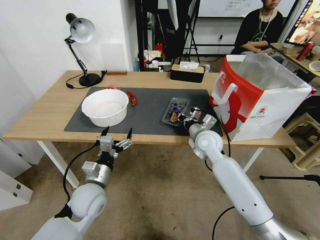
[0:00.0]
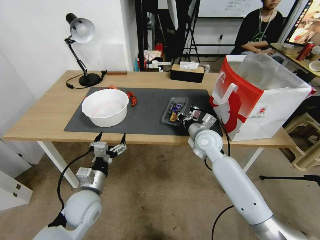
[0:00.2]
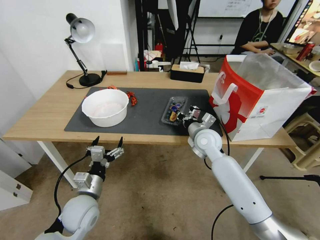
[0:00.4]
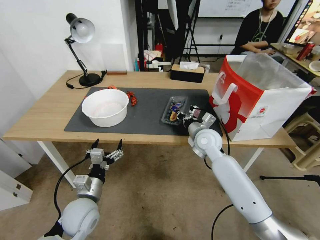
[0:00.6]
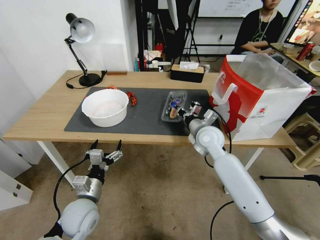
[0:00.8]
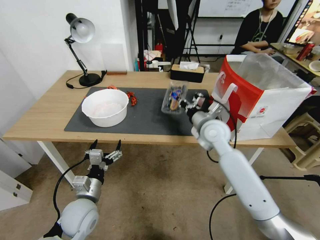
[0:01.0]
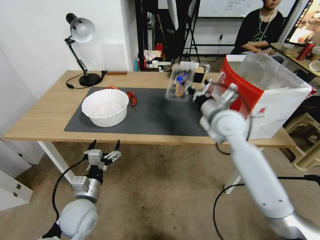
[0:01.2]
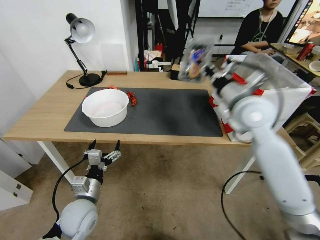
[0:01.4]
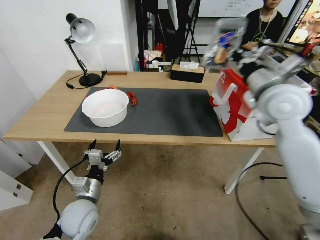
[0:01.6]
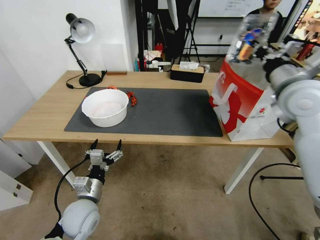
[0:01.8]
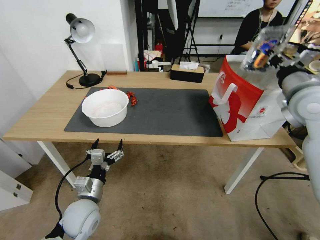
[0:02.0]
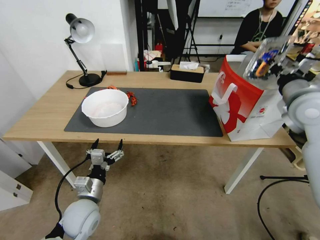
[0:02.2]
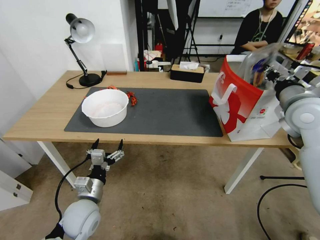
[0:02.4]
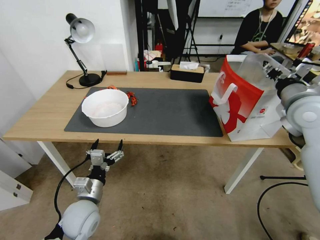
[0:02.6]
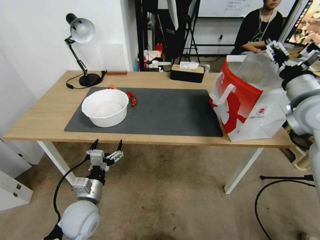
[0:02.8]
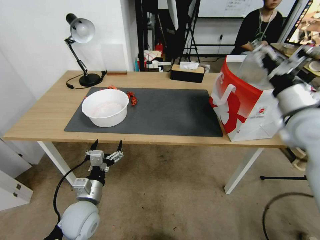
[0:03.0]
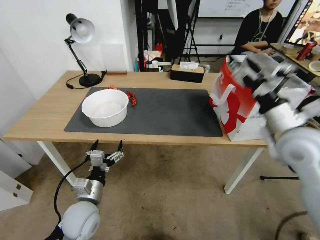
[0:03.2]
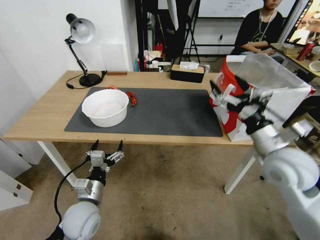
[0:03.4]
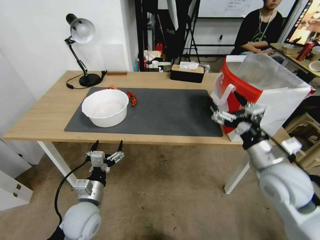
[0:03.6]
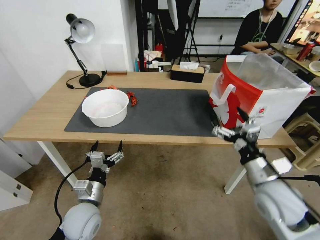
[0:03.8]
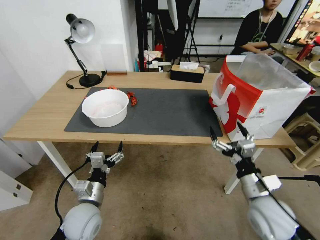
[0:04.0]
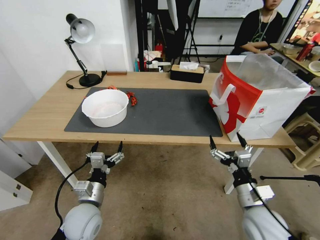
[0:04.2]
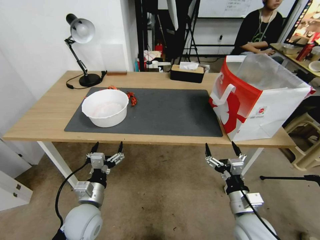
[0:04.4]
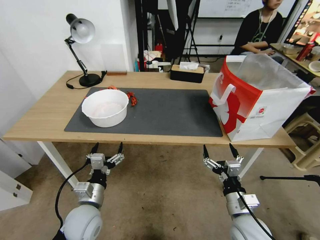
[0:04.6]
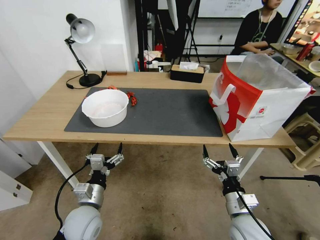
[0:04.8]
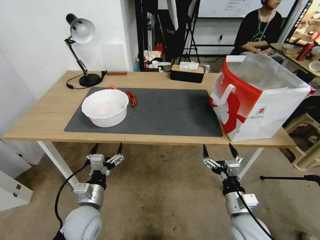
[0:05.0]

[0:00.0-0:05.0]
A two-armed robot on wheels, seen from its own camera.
Task of the whole recording: Close the takeout container lid, then place the container into the takeout bag.
0:00.0 to 0:01.6: The right gripper shifts some 25 cm upward and to the right.
0:01.6 to 0:03.4: The right gripper goes about 15 cm downward and backward, and opens up.
0:03.4 to 0:05.0: The right gripper travels downward and backward by about 25 cm.

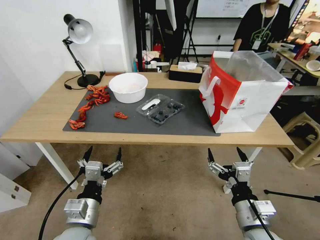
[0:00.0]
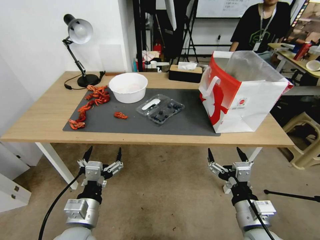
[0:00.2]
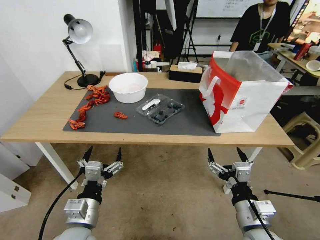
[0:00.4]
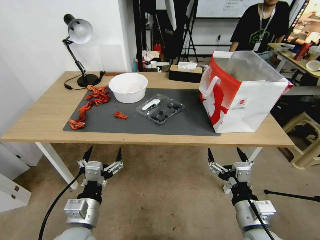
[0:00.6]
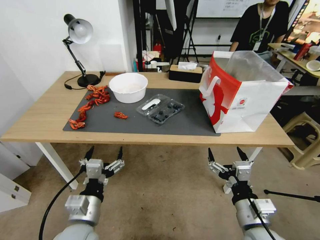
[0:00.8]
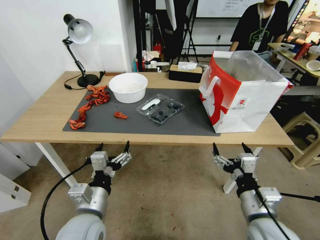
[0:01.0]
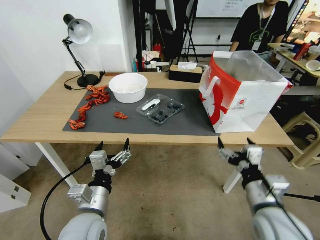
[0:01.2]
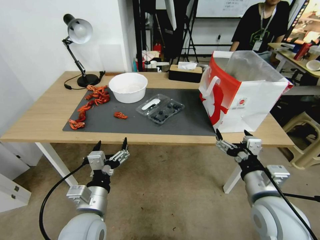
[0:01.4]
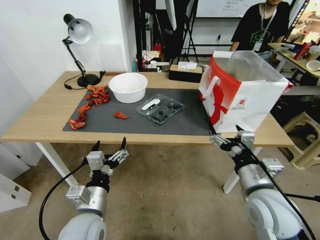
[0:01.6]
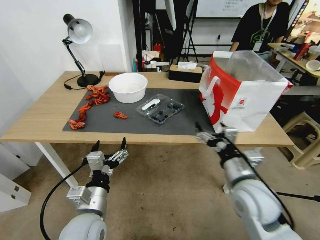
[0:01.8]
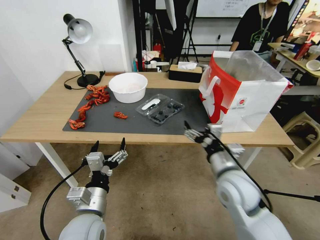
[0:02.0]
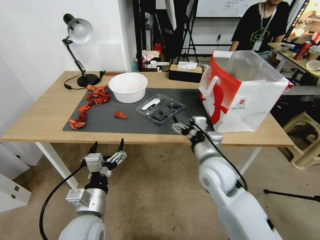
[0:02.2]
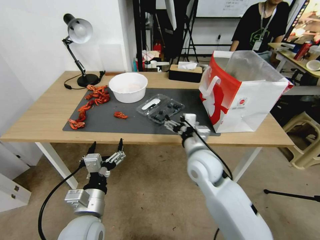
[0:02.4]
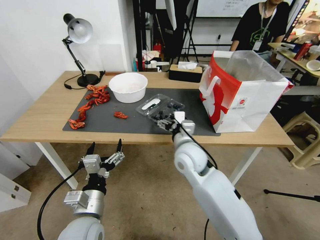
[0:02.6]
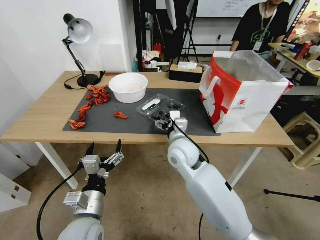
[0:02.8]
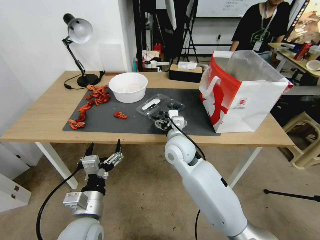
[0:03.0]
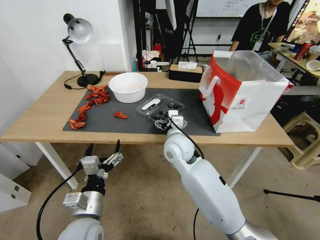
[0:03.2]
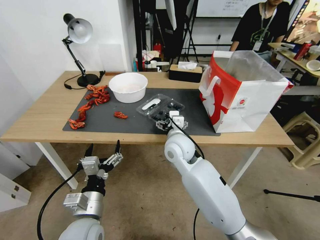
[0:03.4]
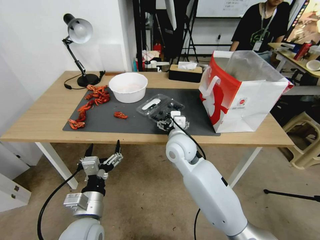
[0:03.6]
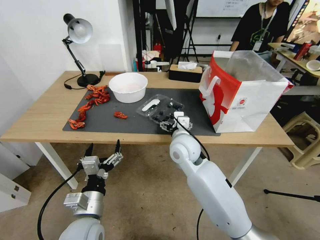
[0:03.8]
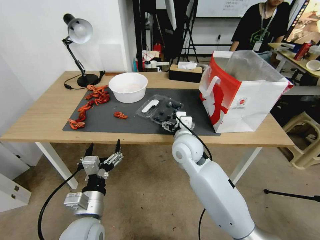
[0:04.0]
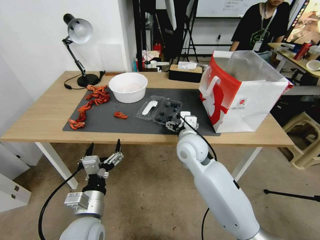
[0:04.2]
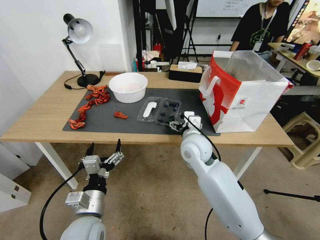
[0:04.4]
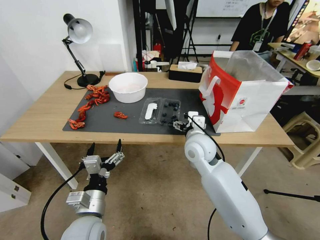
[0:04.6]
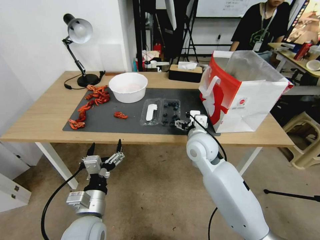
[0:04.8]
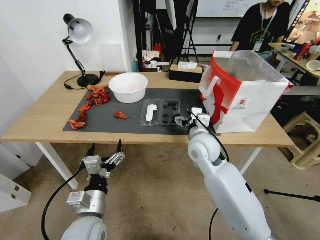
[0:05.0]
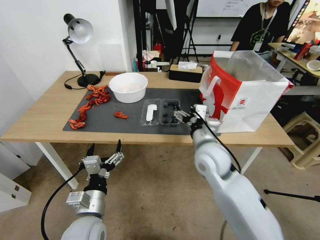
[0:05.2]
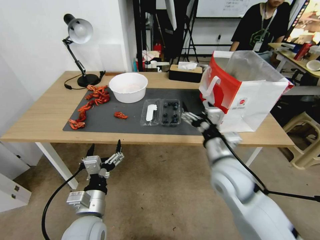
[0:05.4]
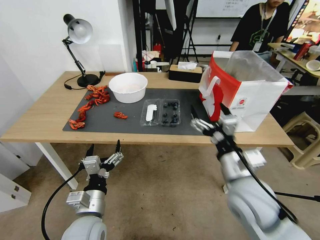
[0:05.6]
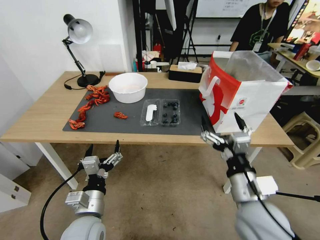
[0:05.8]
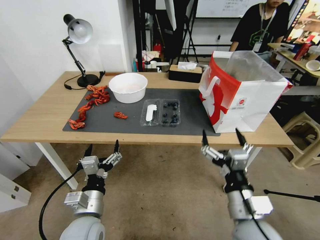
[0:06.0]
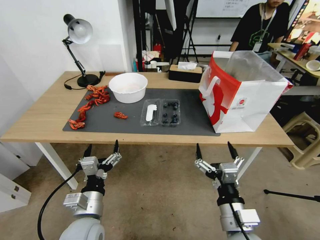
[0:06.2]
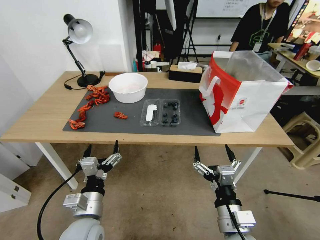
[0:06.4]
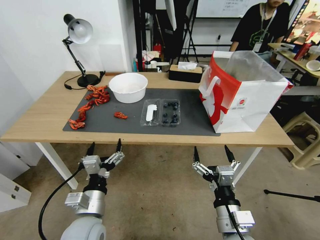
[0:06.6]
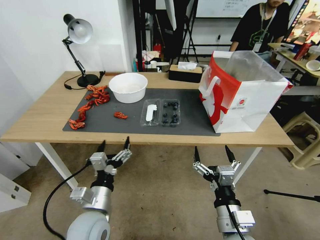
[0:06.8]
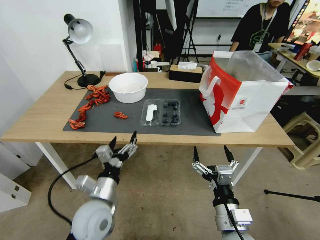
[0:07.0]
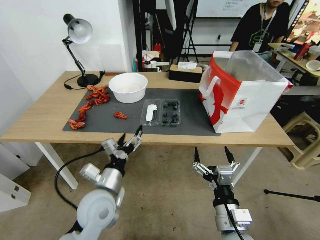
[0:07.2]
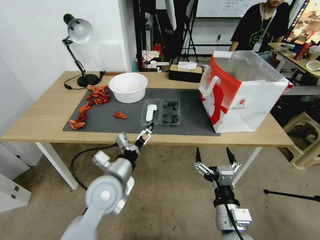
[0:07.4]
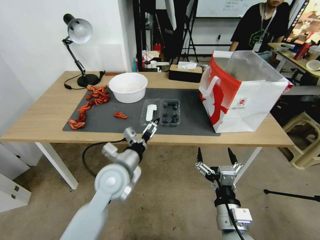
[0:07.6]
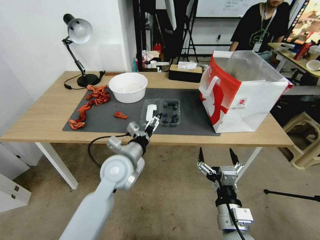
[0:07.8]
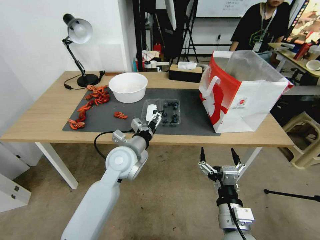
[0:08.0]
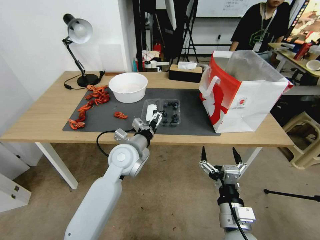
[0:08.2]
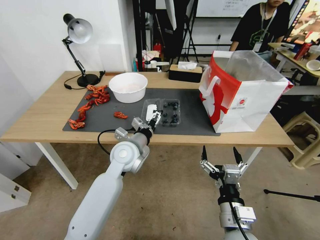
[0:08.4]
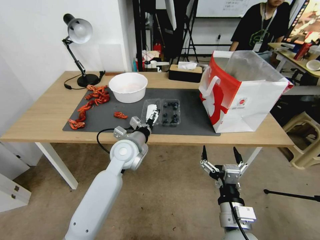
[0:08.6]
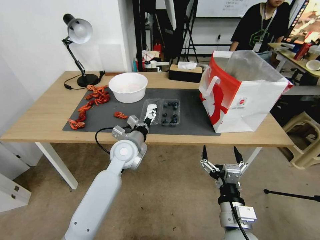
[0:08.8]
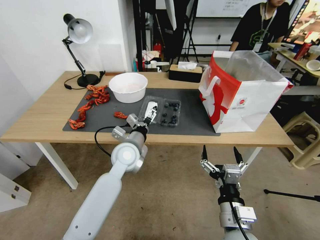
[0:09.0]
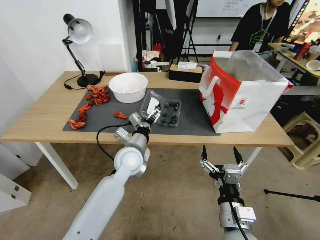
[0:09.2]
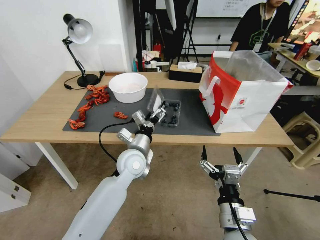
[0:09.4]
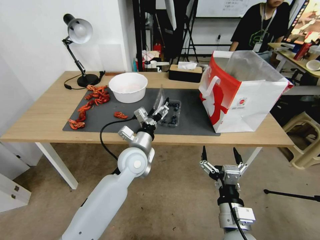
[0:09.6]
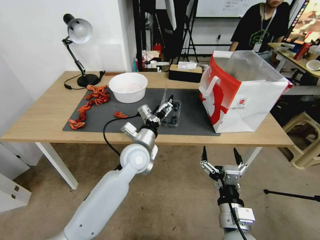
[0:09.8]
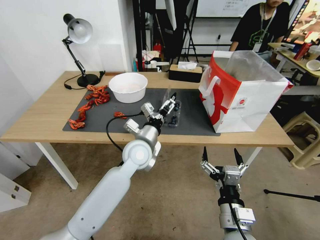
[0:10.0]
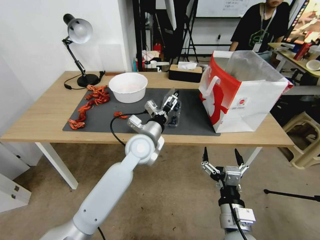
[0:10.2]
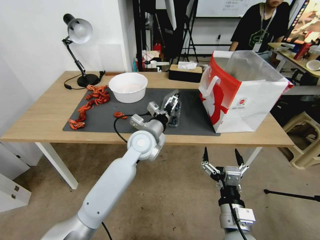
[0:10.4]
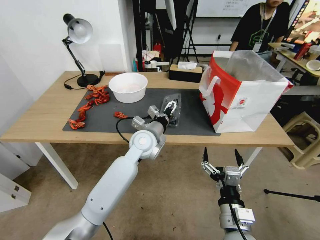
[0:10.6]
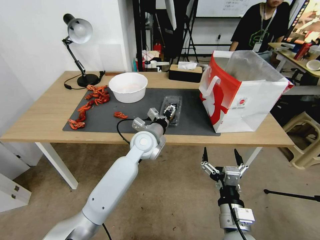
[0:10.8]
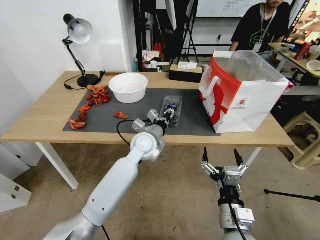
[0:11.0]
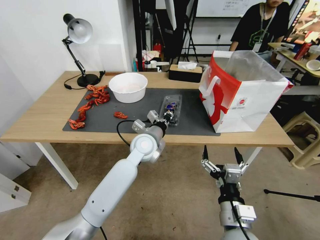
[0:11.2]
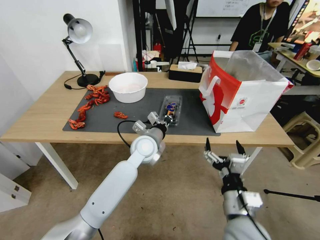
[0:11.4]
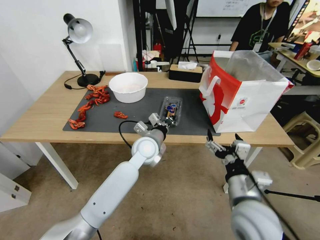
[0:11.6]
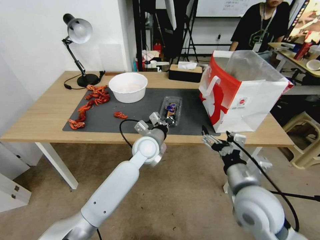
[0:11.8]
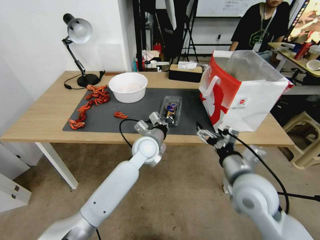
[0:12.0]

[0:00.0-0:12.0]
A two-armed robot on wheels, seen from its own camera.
Task of the whole recording: Close the takeout container lid, then place the container into the takeout bag.
0:01.6 to 0:03.0: The right gripper travels to the left and forward by roughly 25 cm.
0:03.0 to 0:04.4: The right gripper travels to the right by some 5 cm.
0:04.4 to 0:06.0: The right gripper is displaced backward by approximately 25 cm.
0:06.0 to 0:07.6: The right gripper is displaced downward by approximately 5 cm; the left gripper is displaced forward, to the right and upward by roughly 15 cm.
0:07.6 to 0:09.0: The left gripper goes about 10 cm forward.
0:09.0 to 0:10.4: The left gripper travels to the right by about 5 cm.
0:10.4 to 0:12.0: The left gripper closes; the right gripper is displaced forward and upward by about 15 cm.

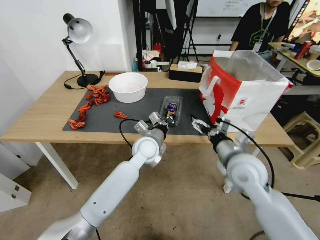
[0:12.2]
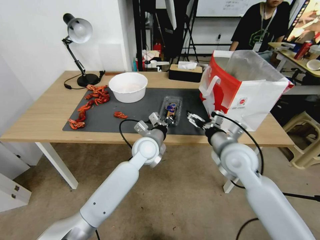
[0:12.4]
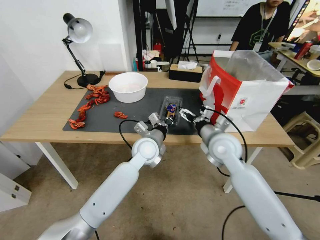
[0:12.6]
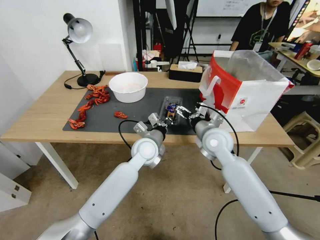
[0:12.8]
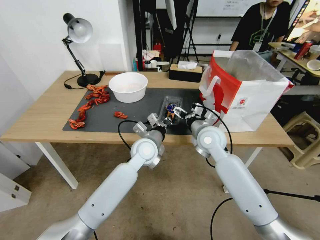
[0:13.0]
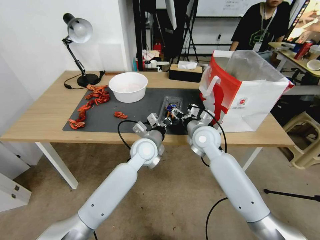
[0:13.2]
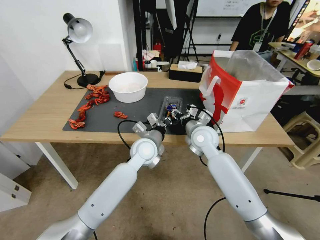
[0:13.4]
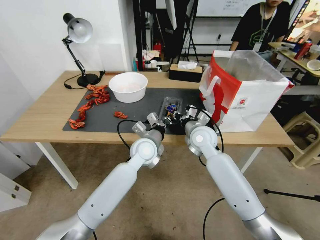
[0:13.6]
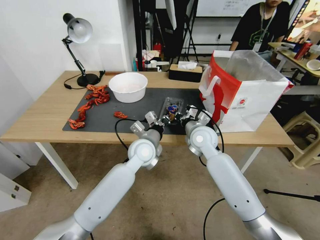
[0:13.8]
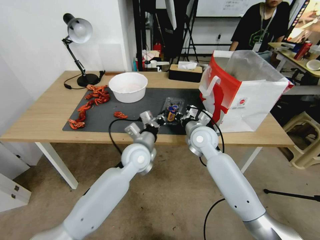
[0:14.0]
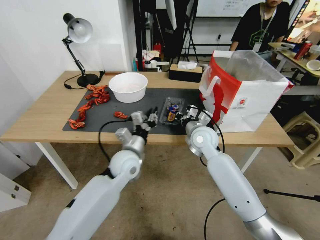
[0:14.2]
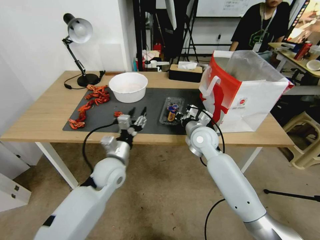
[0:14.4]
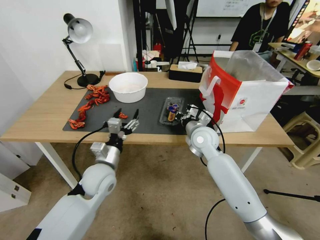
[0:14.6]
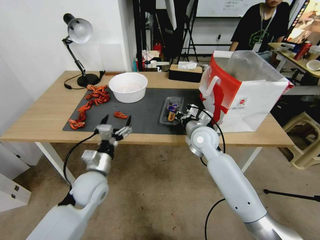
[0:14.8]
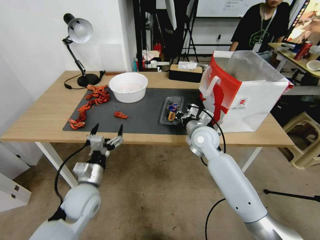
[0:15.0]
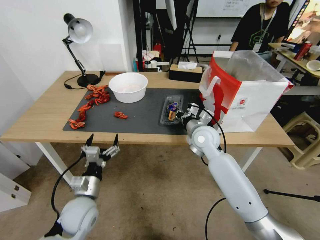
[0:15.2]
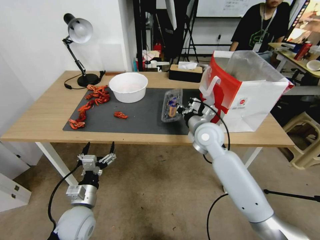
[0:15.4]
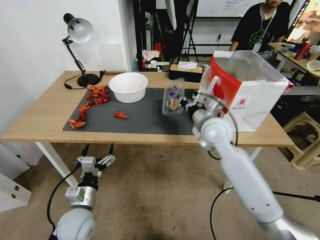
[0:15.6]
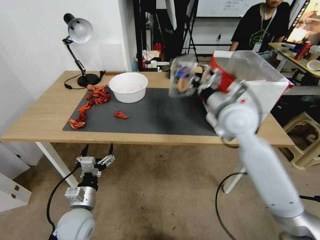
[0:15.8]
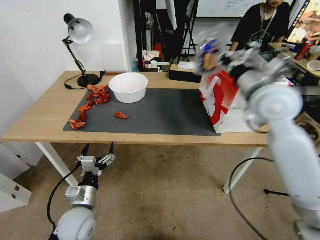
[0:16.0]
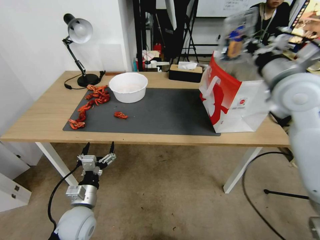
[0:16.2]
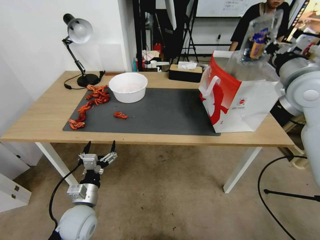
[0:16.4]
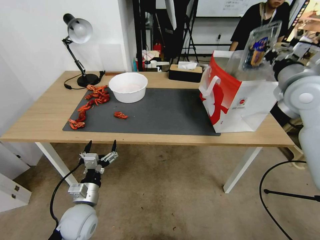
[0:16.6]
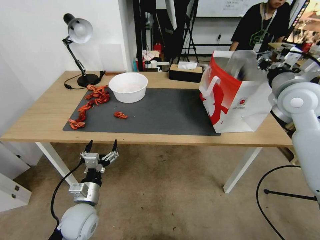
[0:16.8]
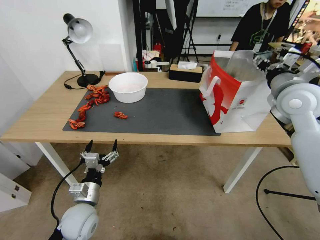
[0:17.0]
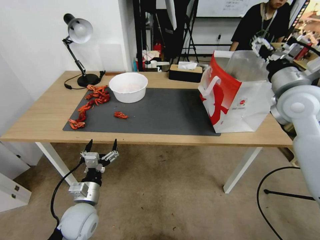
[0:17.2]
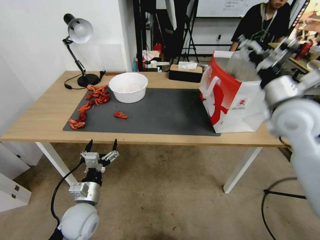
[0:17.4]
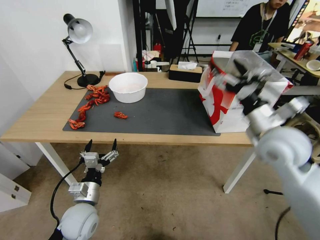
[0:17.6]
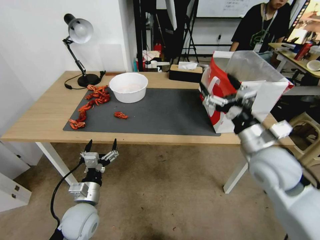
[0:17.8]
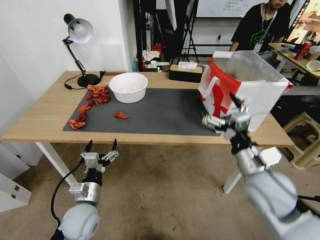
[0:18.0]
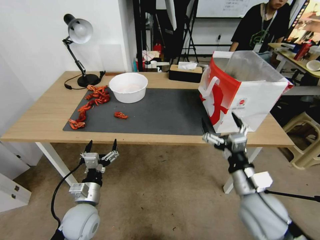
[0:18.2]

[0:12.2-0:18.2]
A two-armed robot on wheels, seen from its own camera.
Task of the whole recording: Close the takeout container lid, then place the container into the takeout bag.
0:12.2 to 0:13.8: The right gripper travels forward and to the left by some 15 cm, and closes up.
0:13.8 to 0:15.2: The left gripper moves to the left, backward and downward, about 25 cm, and opens its fingers.
0:15.2 to 0:16.6: The right gripper moves upward and to the right, some 30 cm.
0:16.6 to 0:18.2: The right gripper heads downward, backward and to the left, covering about 30 cm, and opens.
